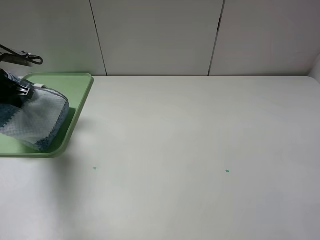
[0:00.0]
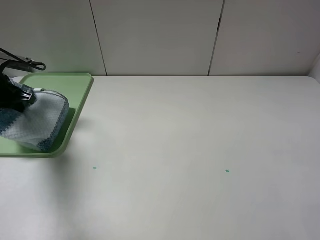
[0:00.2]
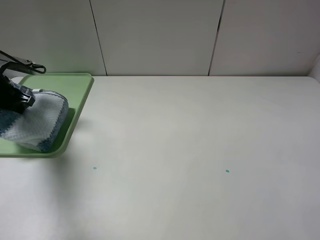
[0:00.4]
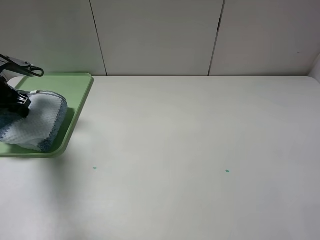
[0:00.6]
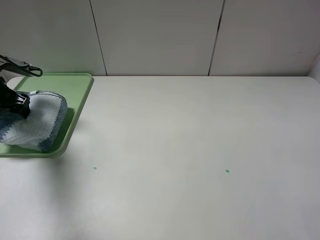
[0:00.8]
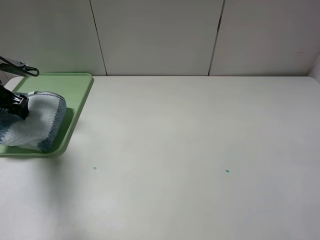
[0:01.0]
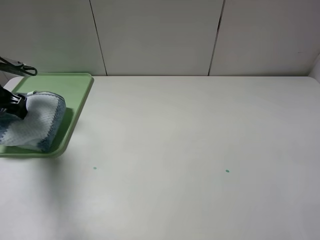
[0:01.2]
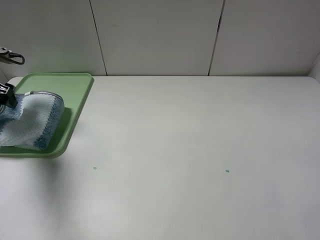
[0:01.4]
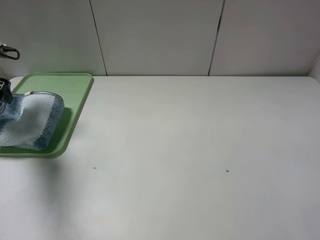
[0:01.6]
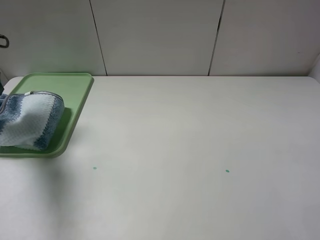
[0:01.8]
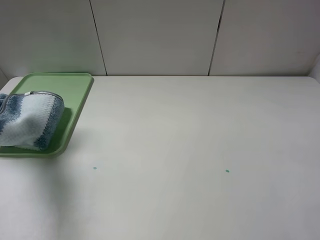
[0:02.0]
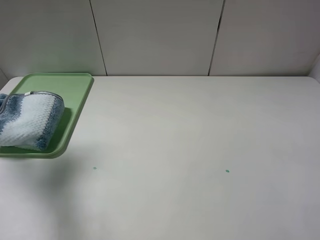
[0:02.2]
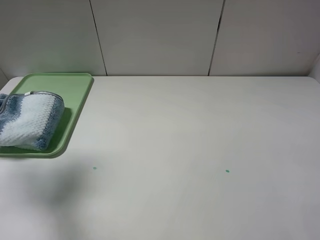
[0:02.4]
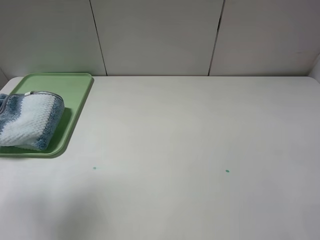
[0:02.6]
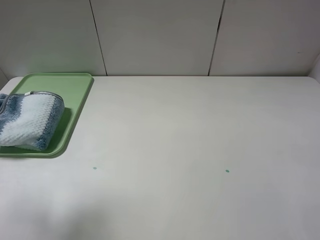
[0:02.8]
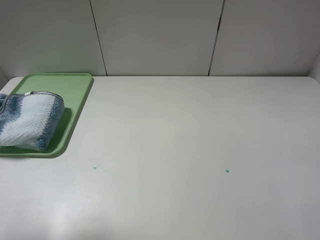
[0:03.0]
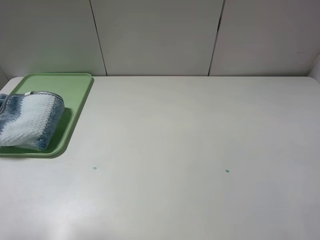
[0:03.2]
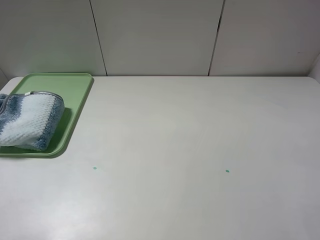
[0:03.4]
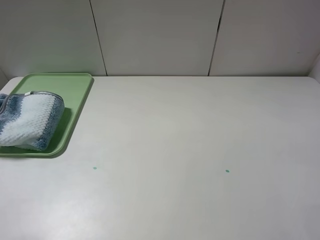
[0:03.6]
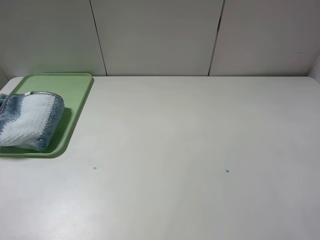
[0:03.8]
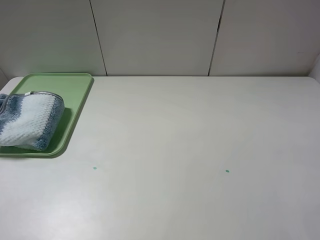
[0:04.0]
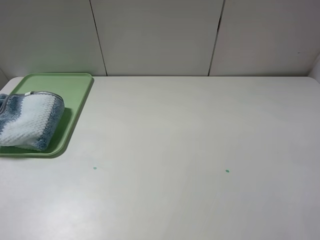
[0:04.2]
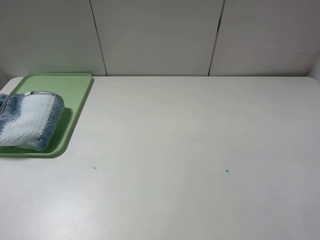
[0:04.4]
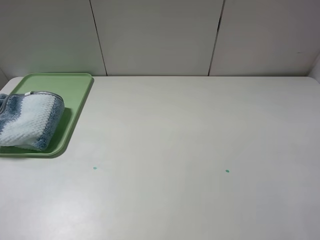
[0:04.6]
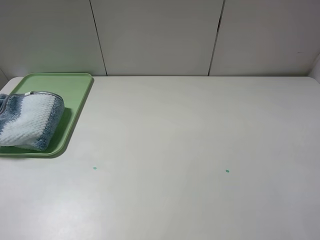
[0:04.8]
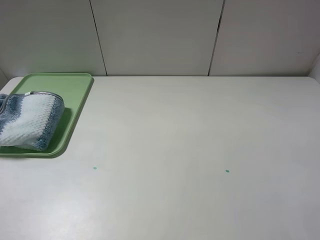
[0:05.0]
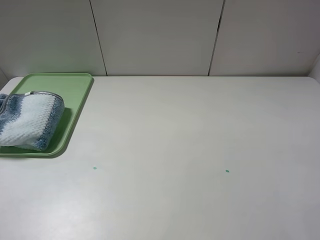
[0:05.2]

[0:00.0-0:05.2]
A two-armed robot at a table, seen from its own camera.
0:00.0 to 0:01.8: The left gripper heads upward, covering approximately 5 cm, and opens up.
0:01.8 to 0:03.4: The left gripper moves backward, roughly 30 cm.
